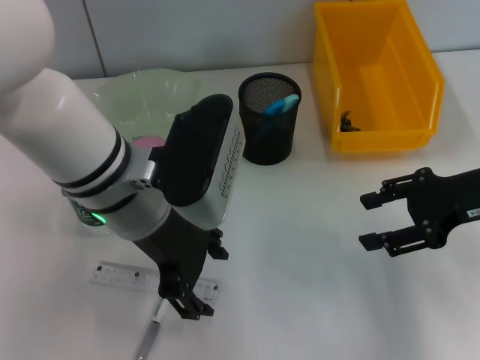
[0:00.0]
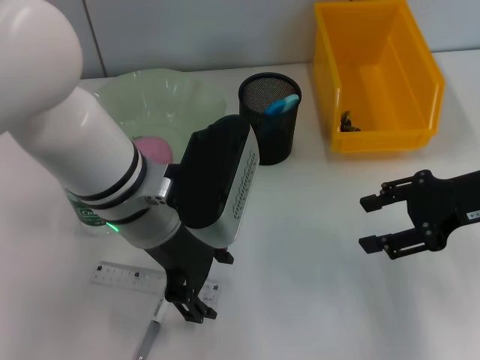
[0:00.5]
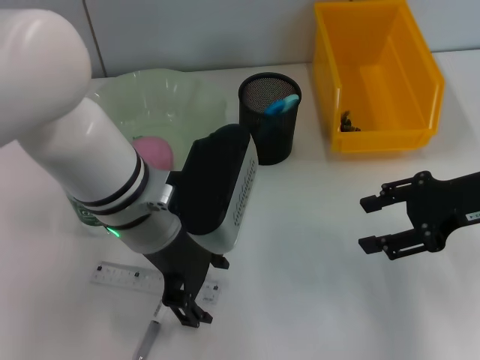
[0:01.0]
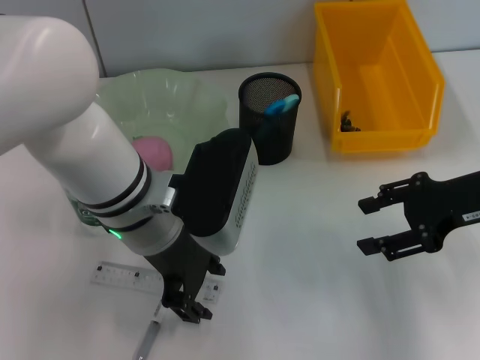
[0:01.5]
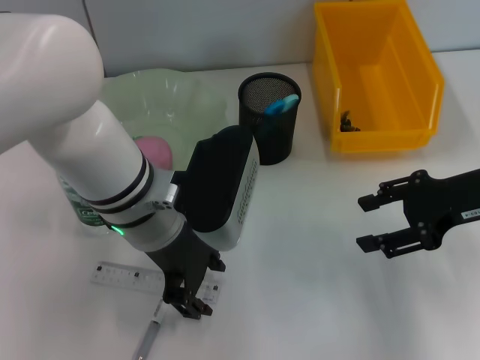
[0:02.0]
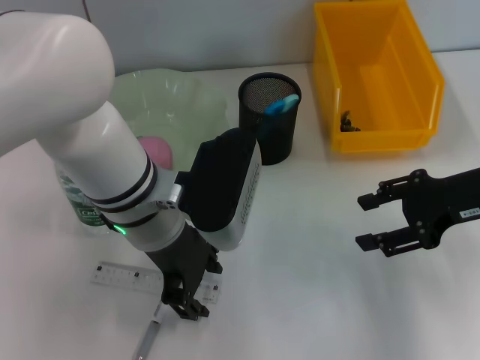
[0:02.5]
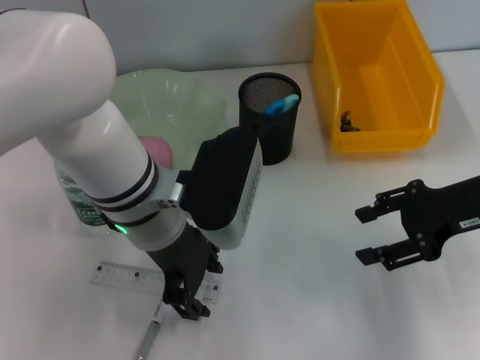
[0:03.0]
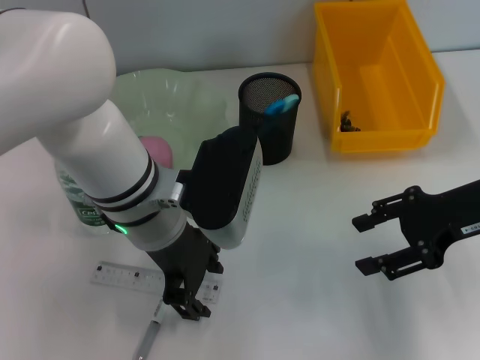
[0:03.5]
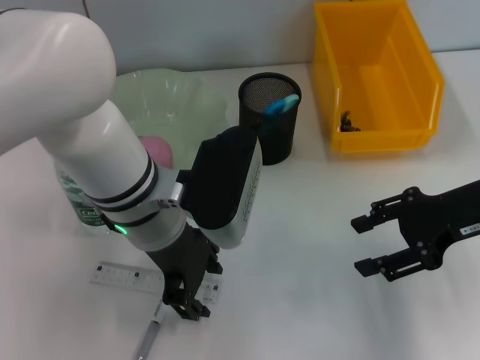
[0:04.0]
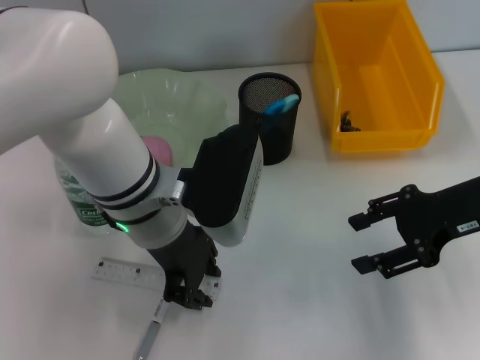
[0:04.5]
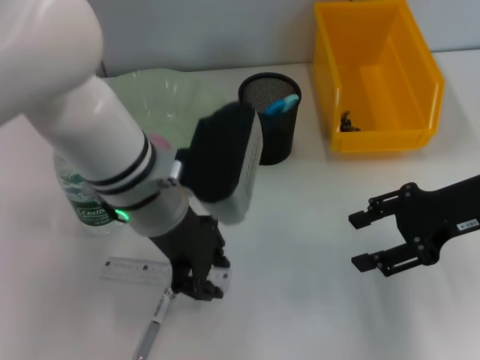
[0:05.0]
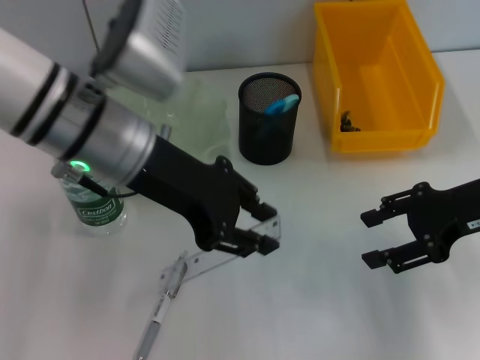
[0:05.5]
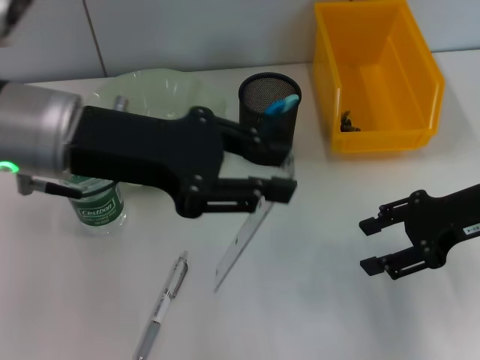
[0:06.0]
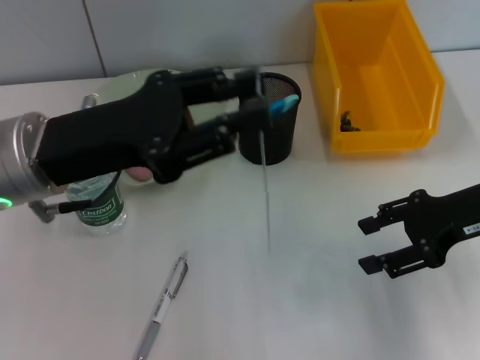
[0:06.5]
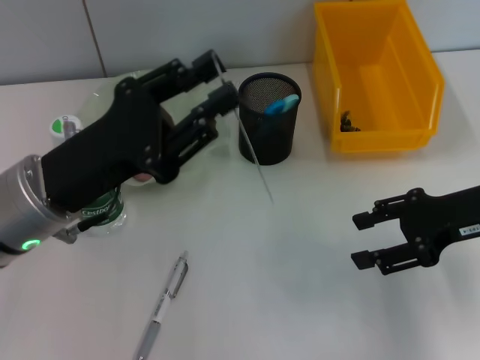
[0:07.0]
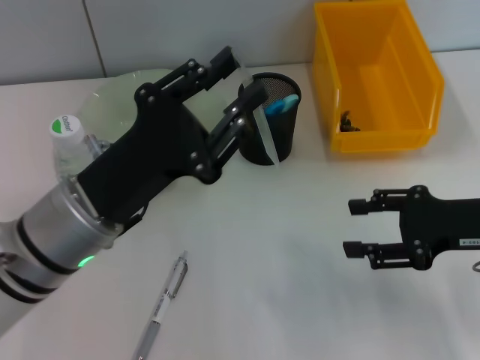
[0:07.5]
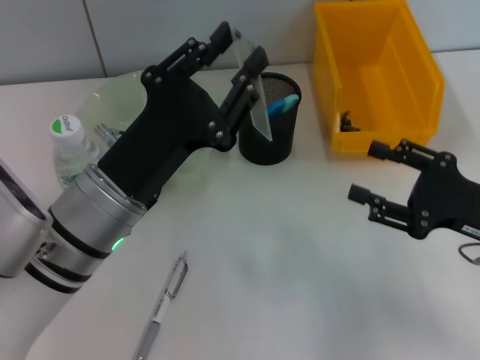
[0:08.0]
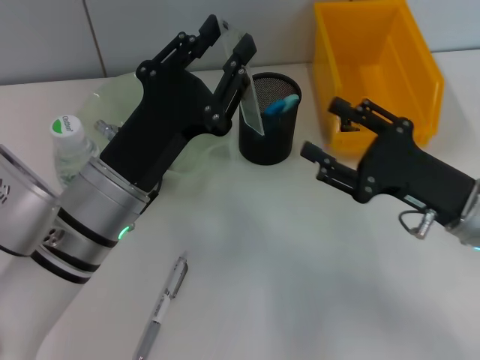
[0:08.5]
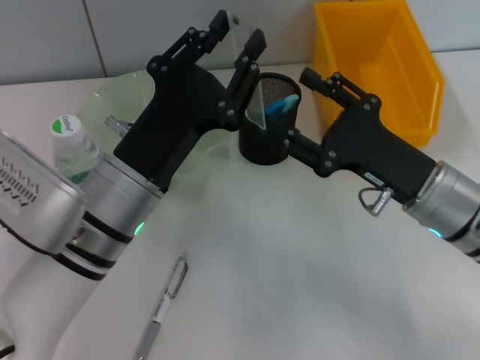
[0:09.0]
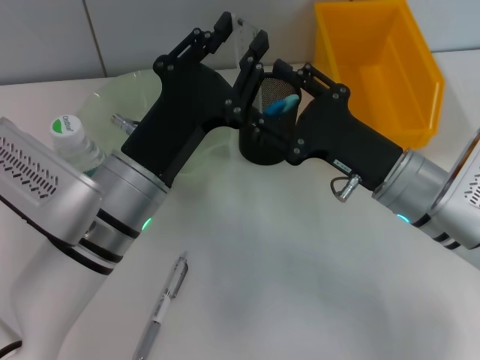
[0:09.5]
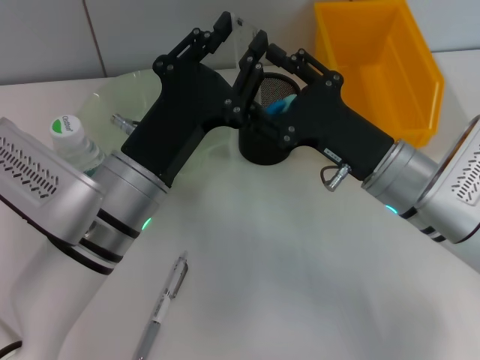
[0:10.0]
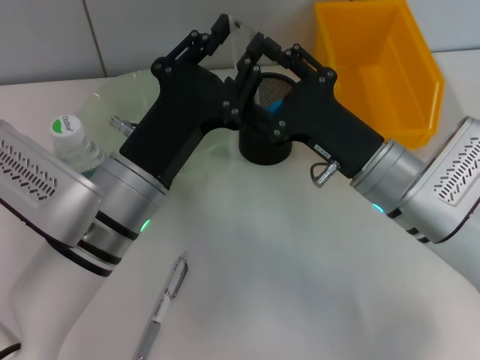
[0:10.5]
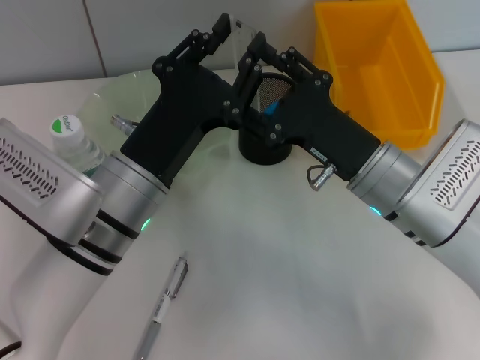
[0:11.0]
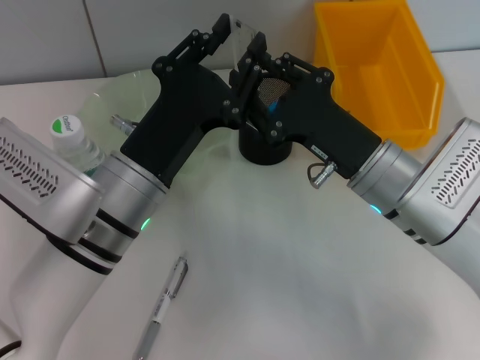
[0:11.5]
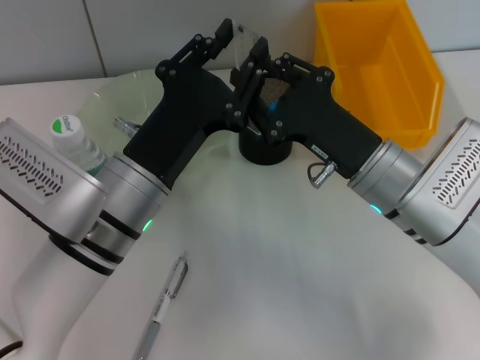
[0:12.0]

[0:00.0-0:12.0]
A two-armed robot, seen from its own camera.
Step, 0:00.0 to 0:04.0: Grab the ruler with the left hand.
0:00.0 to 0:04.0: There are only small adjustments of the grippers.
0:04.0 to 0:06.0: The left gripper goes some 10 cm to the left and upward.
0:06.0 to 0:08.0: The left gripper shifts about 10 cm downward, while the right gripper is displaced backward by roughly 5 cm.
0:08.0 to 0:10.0: The right gripper moves to the left and forward, about 15 cm.
0:10.0 to 0:12.0: The right gripper closes.

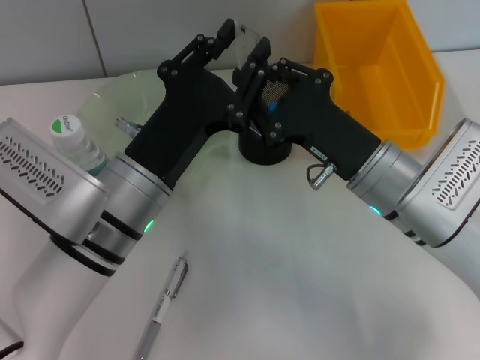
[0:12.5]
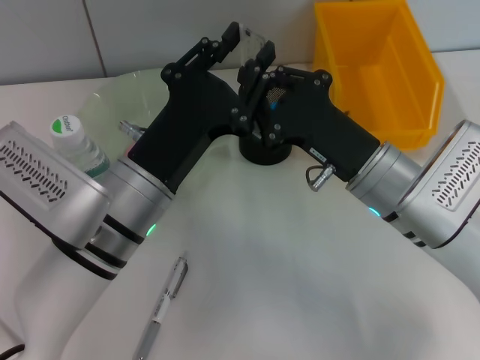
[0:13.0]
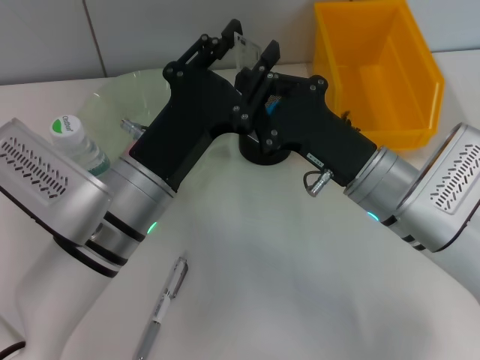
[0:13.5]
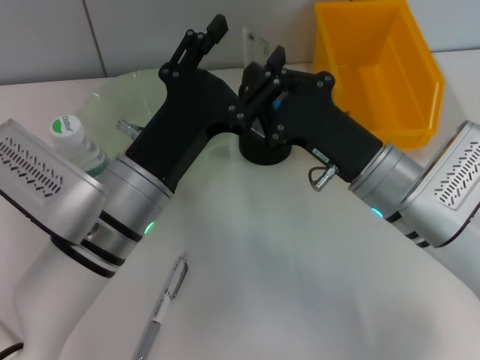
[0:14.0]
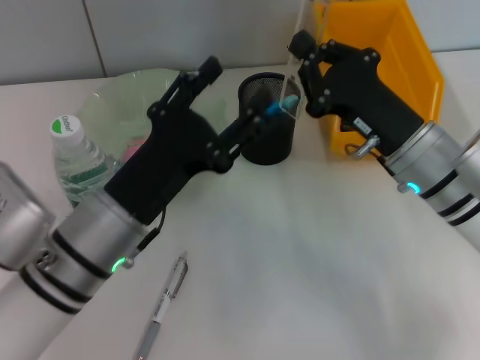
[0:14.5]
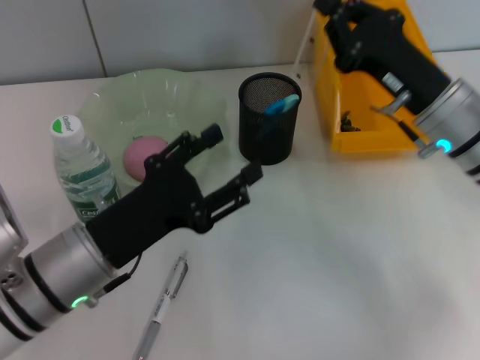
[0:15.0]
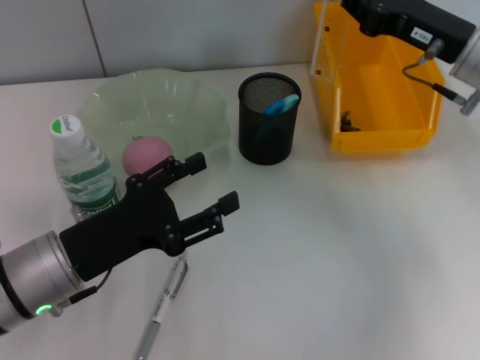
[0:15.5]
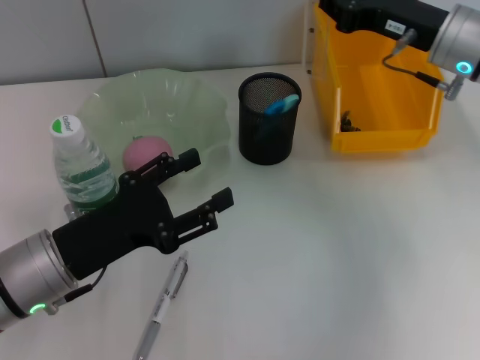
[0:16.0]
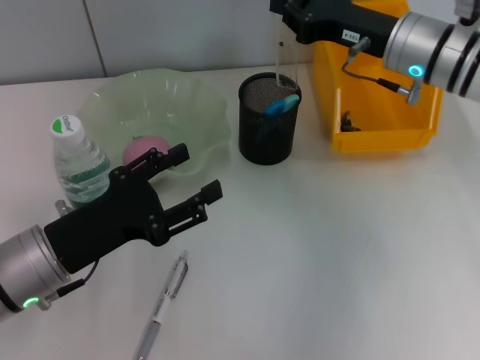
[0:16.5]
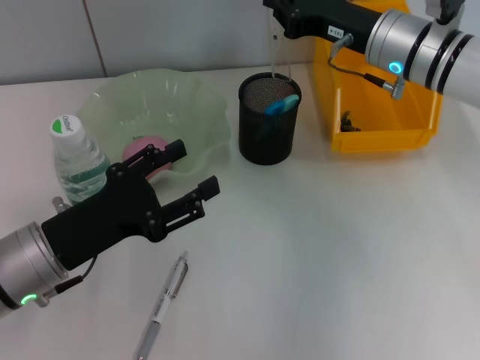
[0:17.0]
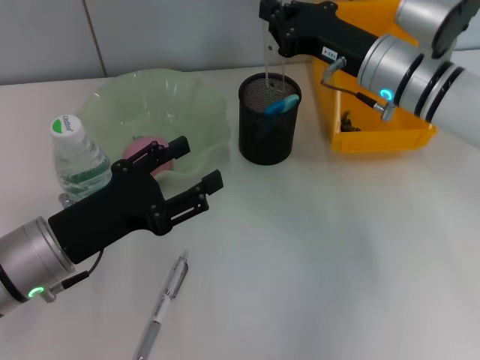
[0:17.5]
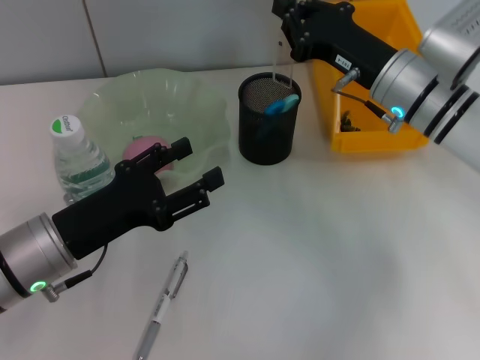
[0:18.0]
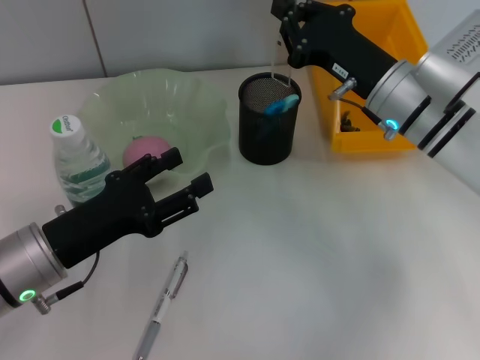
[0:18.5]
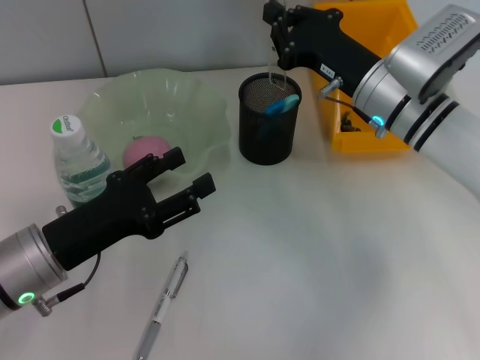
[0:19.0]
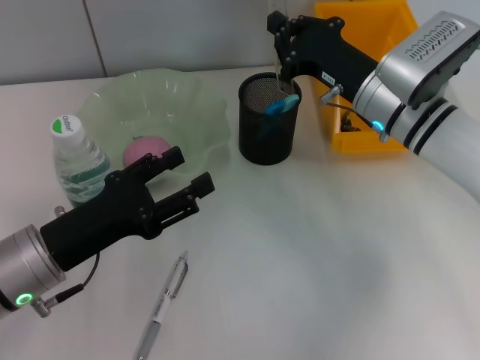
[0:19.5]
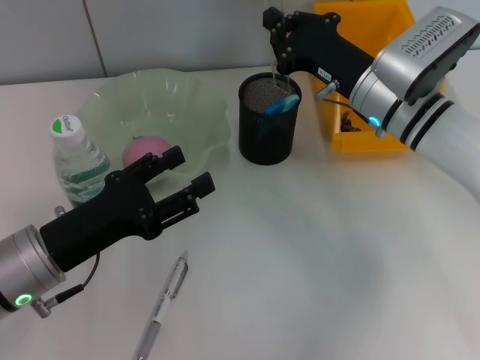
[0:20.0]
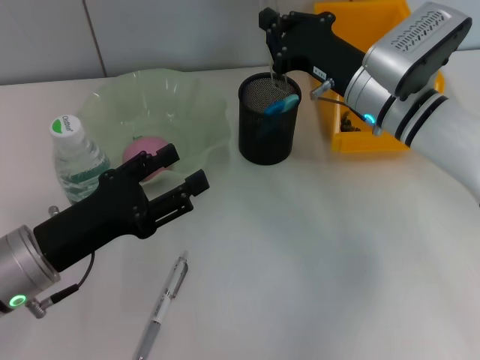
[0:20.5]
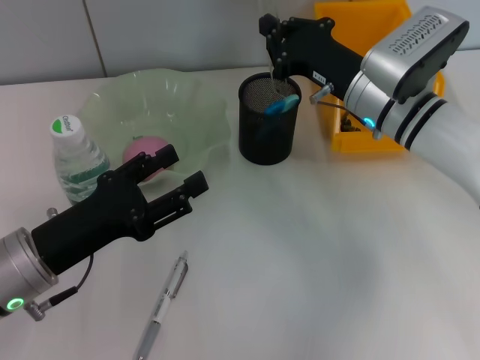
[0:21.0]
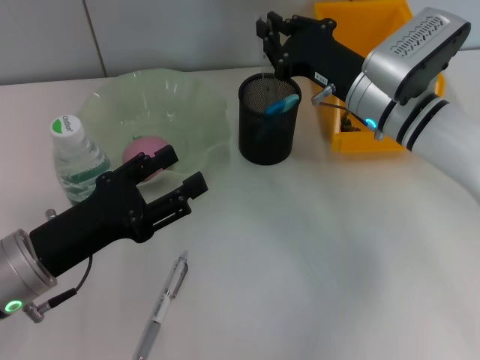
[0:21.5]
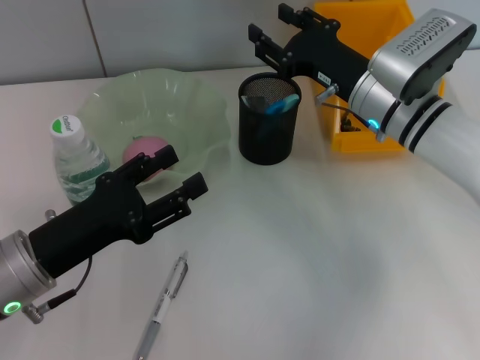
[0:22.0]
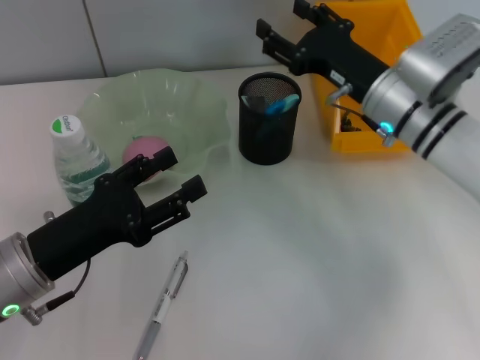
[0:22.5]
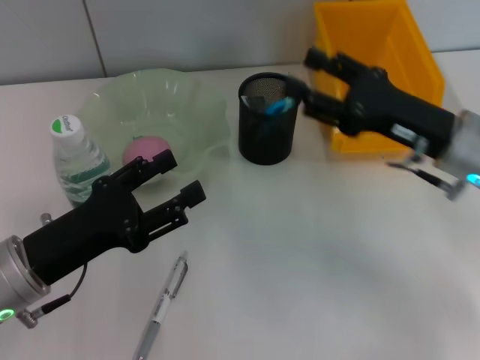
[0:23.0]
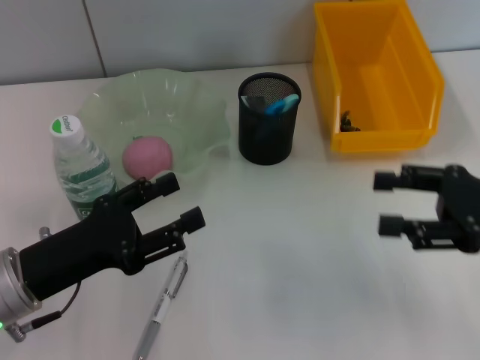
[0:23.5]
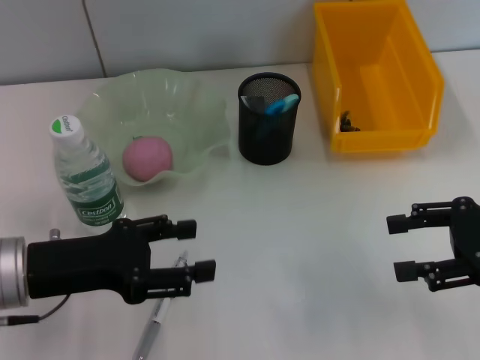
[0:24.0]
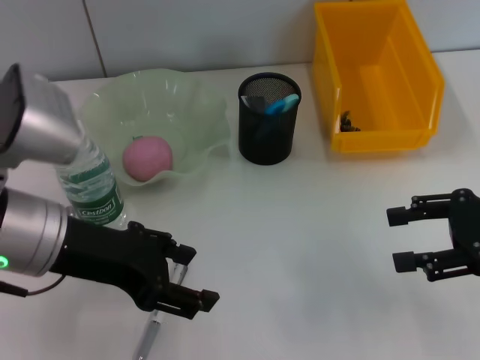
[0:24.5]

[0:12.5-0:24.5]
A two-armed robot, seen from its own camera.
Step, 0:13.5 to 0:21.5: Place the ruler into the pen holder with the right hand.
0:12.5 to 0:14.5: The left gripper opens.
0:14.5 to 0:16.5: The right gripper travels forward and upward by approximately 10 cm; the left gripper shifts roughly 10 cm to the left.
0:16.5 to 0:18.5: The right gripper changes place by about 5 cm.
0:18.5 to 0:20.5: There are only small adjustments of the grippers.
0:20.5 to 0:22.5: The right gripper opens up.
0:22.5 to 0:24.5: The left gripper heads upward, covering about 10 cm, while the right gripper travels to the right and backward by about 20 cm.

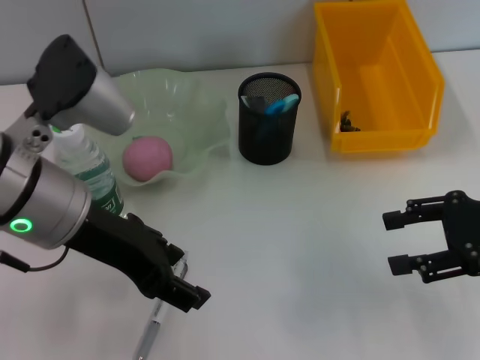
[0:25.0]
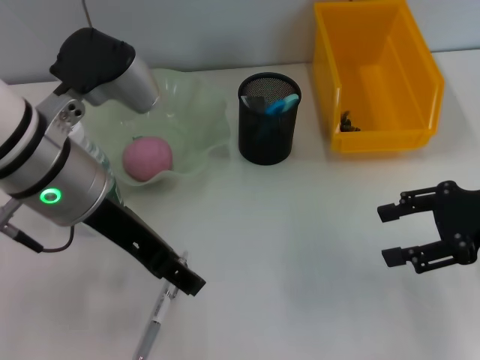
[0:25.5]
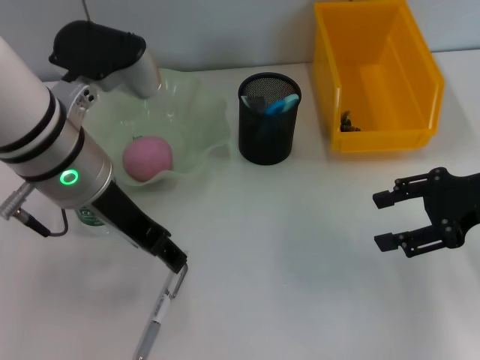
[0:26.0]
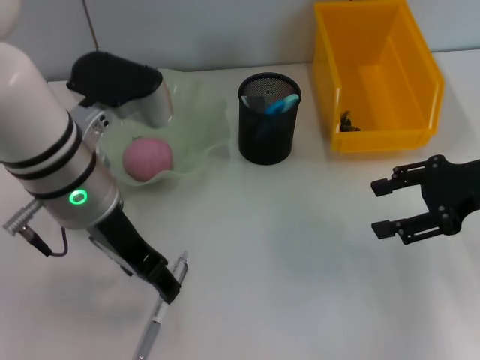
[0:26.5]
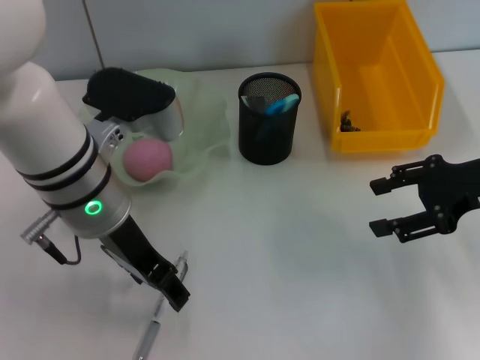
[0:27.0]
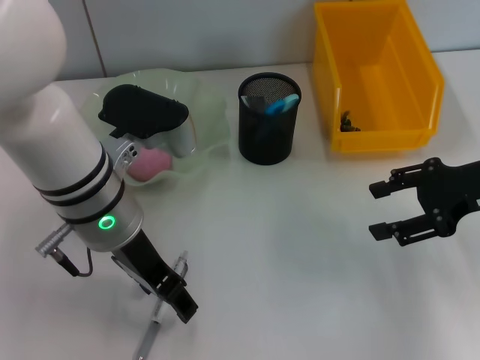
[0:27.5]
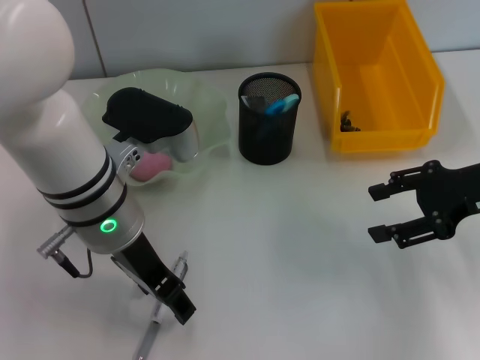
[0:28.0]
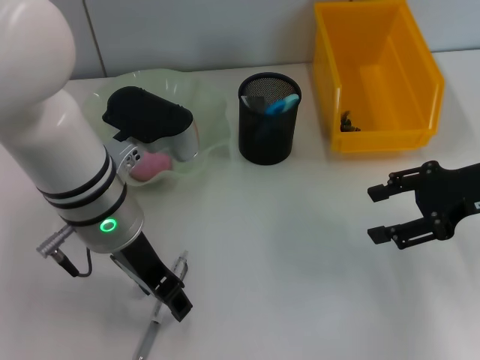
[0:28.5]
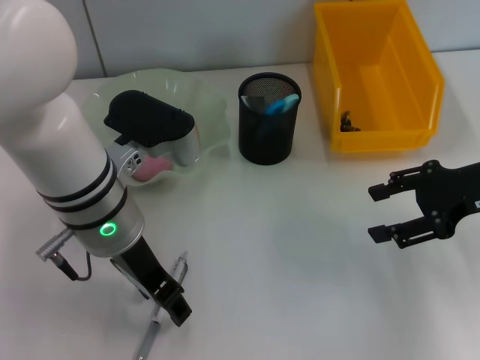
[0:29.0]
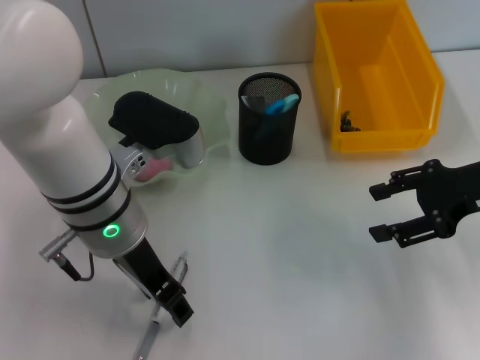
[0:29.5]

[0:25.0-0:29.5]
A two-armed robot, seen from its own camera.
0:25.0 to 0:27.0: The left gripper ends up some 5 cm from where it was.
0:27.0 to 0:29.5: There are only small adjustments of the grippers.
